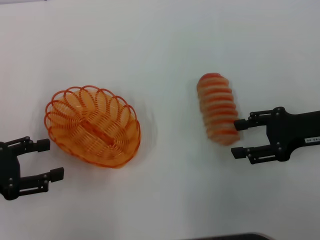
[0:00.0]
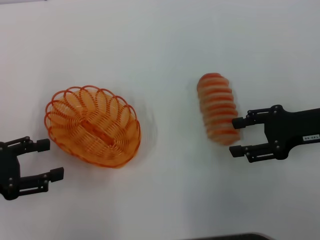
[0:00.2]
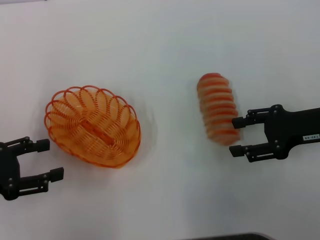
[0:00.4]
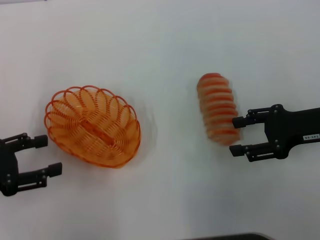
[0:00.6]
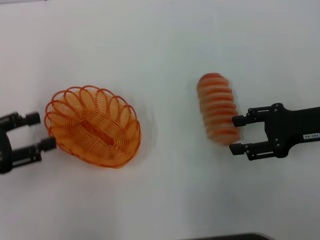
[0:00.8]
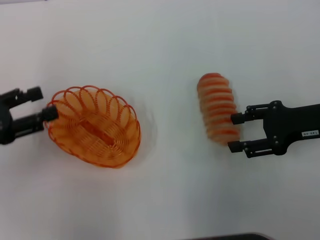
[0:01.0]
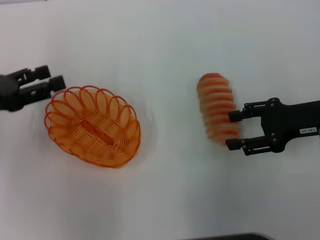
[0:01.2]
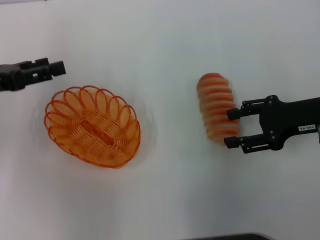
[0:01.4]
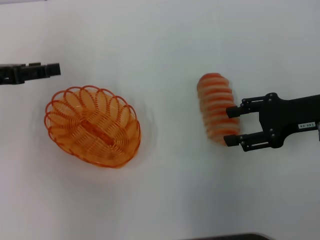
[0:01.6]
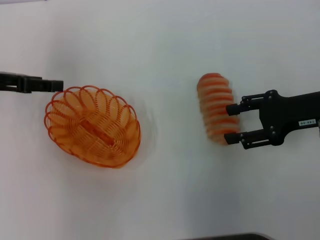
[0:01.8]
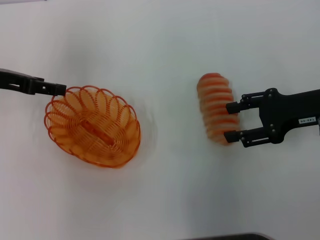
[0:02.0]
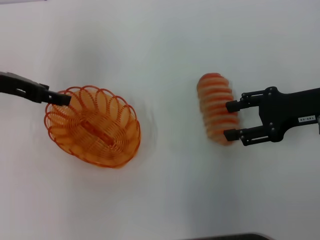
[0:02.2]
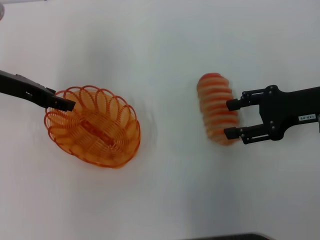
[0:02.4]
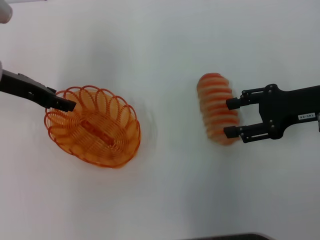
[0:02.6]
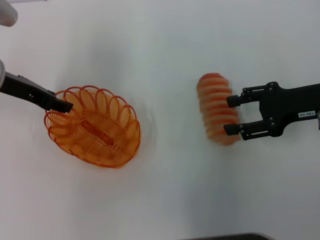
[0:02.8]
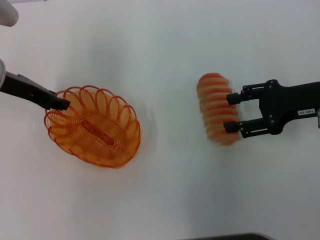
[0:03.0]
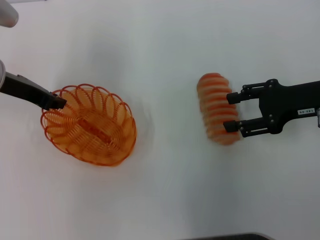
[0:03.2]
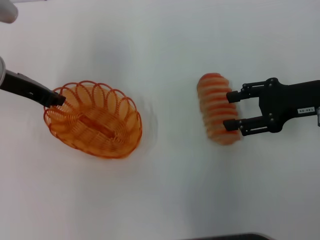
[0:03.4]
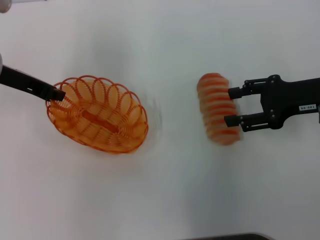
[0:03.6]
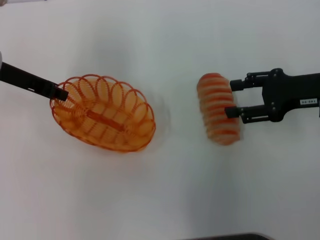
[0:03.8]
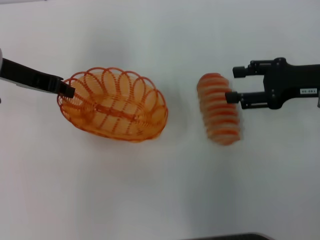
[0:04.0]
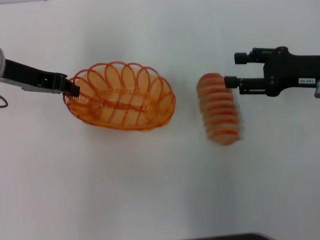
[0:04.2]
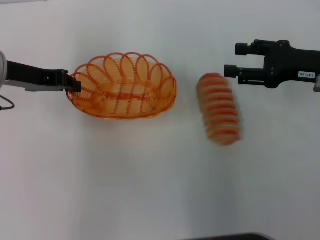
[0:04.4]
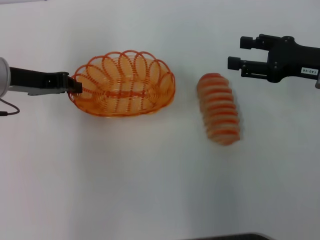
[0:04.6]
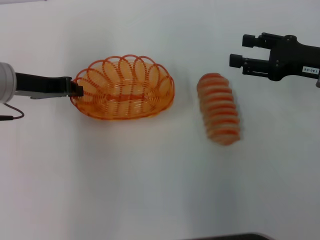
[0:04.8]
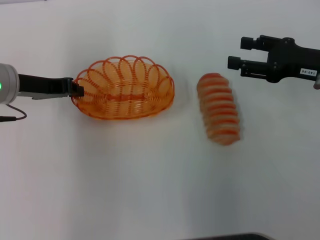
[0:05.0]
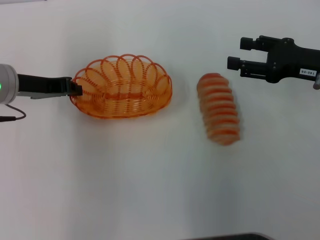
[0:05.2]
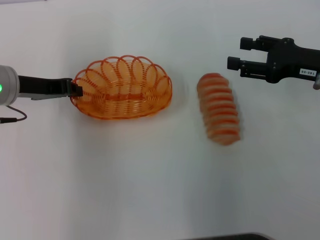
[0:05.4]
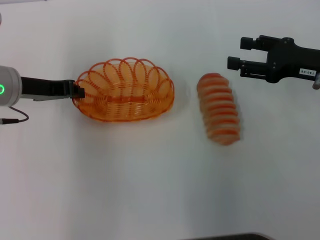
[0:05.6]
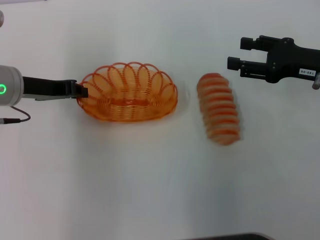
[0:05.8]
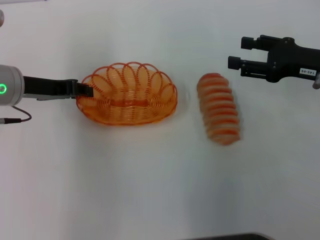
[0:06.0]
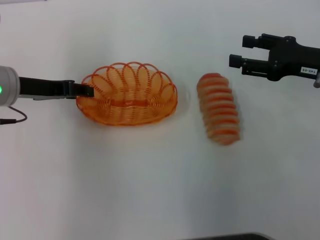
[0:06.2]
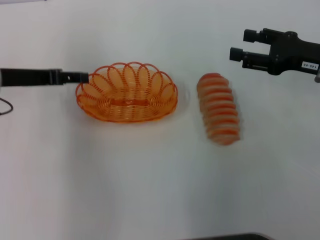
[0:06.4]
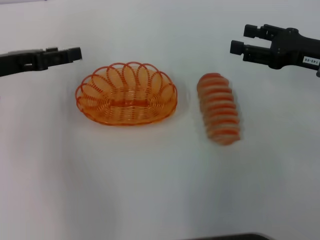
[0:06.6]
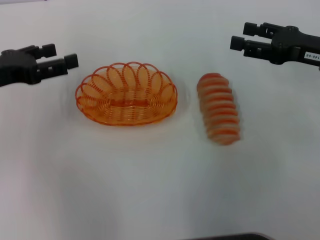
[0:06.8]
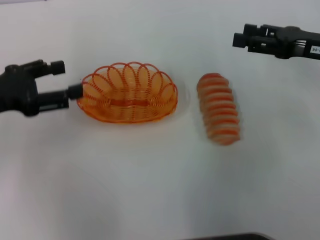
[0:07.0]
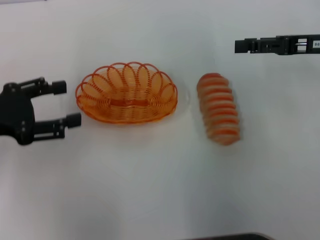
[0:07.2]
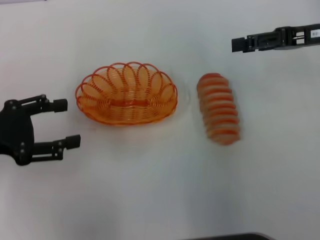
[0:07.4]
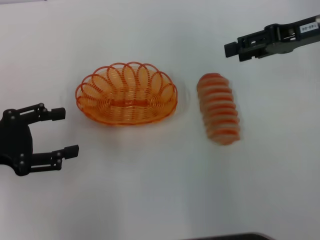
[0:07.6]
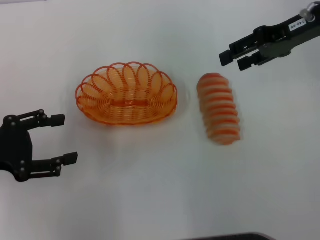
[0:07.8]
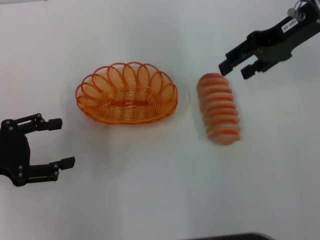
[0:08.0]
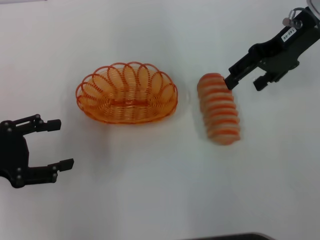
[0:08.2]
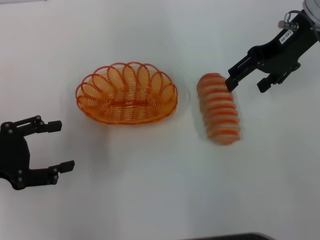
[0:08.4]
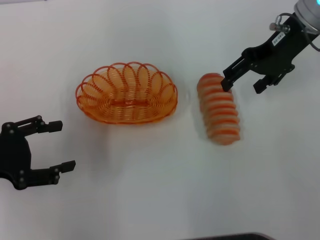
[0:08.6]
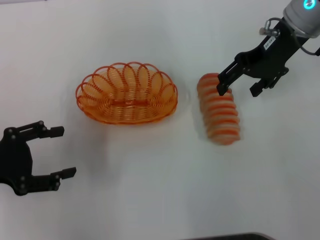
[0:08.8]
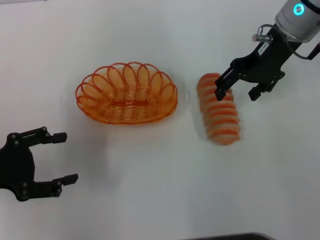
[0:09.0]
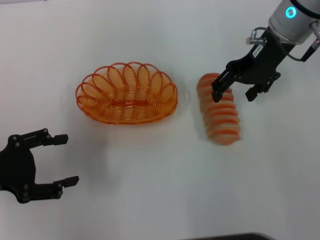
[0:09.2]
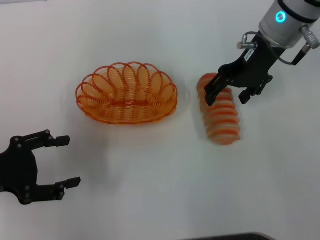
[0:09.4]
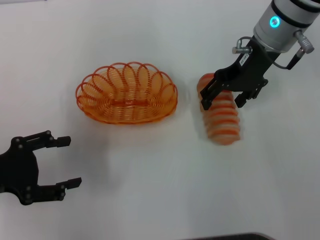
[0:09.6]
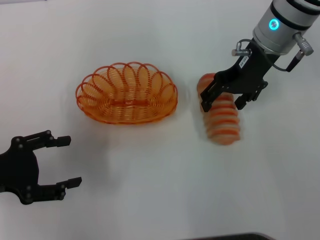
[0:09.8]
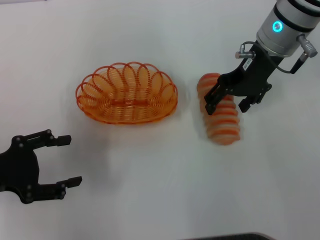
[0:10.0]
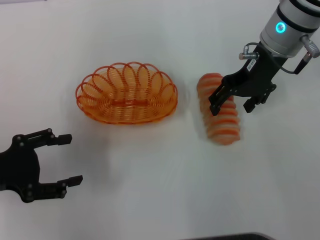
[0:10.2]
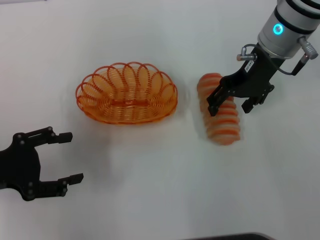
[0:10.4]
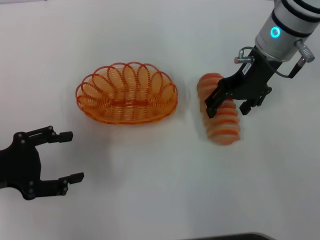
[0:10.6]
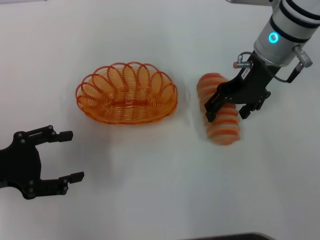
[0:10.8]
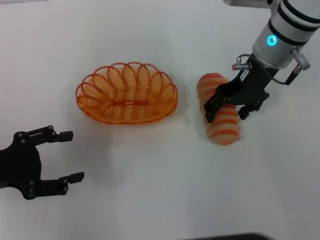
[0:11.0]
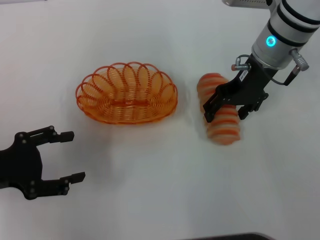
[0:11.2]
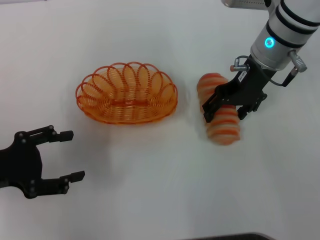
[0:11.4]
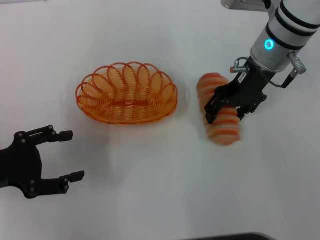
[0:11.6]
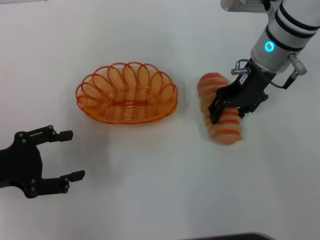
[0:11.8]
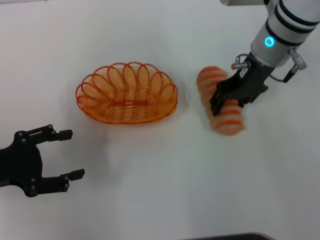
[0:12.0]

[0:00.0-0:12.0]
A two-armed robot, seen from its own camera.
Step, 0:00.0 to 0:03.6: Pick up the basket with the left gripper.
Step, 0:03.8 to 0:06.2: Place the basket in the center of view with the left gripper.
Step, 0:06.6 to 0:12.0: Pick up the long bread with the right gripper.
0:00.0 to 0:01.6: The left gripper heads forward, covering some 10 cm.
0:01.6 to 0:03.0: The left gripper travels to the right by roughly 5 cm.
0:03.0 to 0:04.4: The left gripper closes up.
0:04.4 to 0:06.0: The grippers make only small movements.
0:06.0 to 0:07.6: The right gripper shifts about 10 cm upward and forward. The left gripper goes some 15 cm backward and to the left, and opens up.
0:07.6 to 0:09.0: The right gripper goes some 10 cm to the left.
0:09.0 to 0:10.4: The grippers move only a little.
0:10.4 to 0:12.0: The right gripper closes.

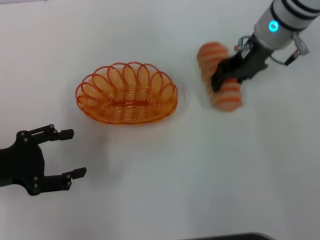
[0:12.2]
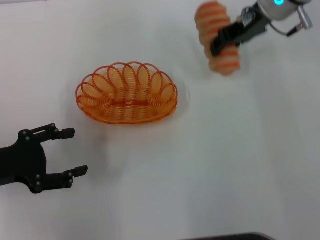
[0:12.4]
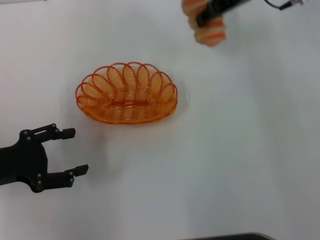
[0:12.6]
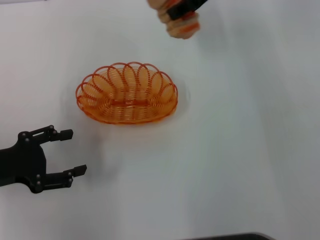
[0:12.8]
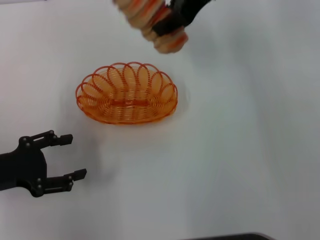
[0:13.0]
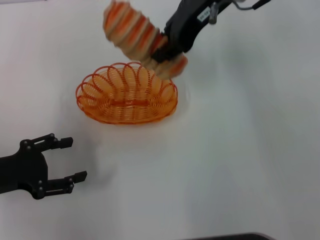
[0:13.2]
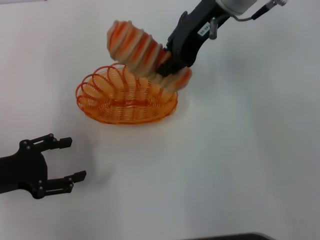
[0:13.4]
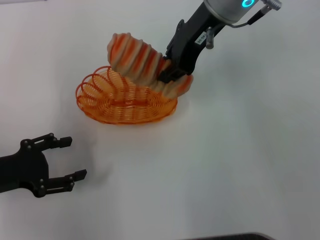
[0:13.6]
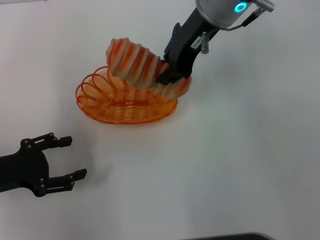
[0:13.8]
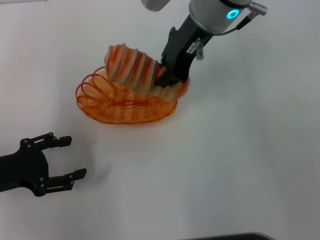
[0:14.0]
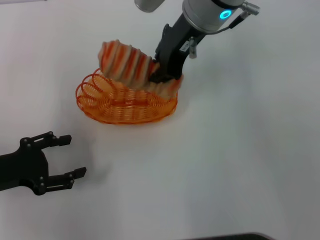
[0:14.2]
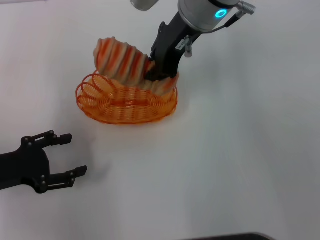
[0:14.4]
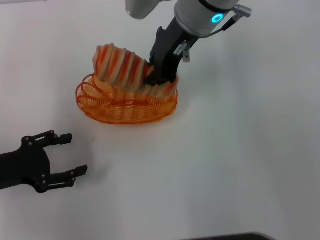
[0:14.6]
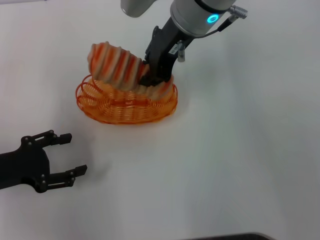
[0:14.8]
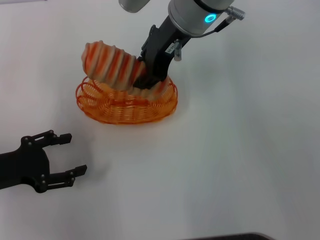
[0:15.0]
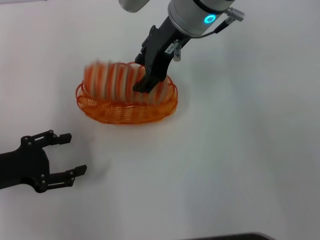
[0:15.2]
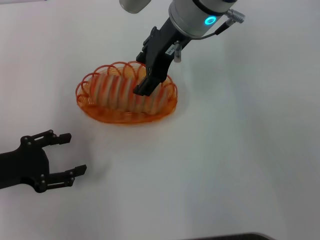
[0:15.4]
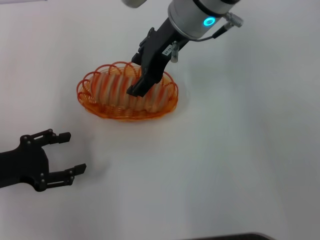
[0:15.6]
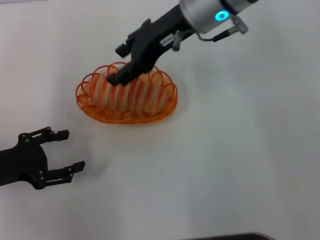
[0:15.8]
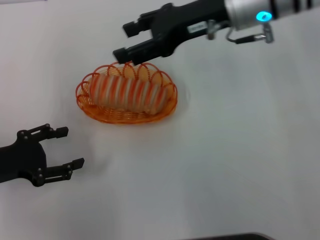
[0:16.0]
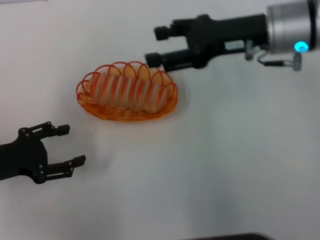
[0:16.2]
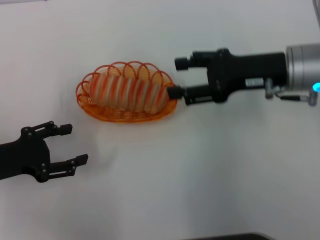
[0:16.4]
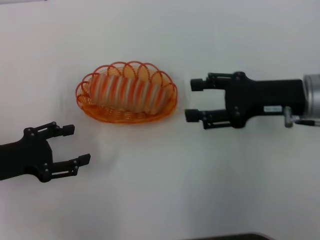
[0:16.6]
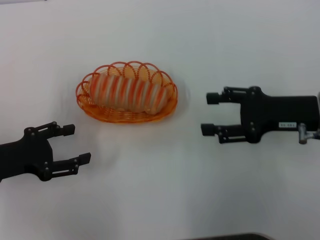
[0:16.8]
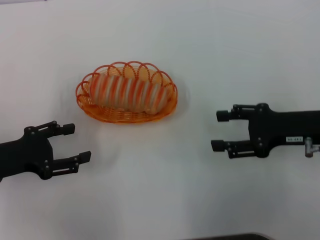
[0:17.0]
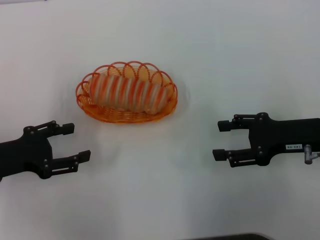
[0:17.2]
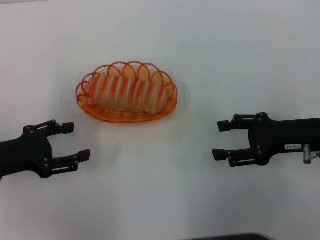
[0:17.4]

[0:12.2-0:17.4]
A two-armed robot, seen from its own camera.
Step, 0:12.2 to 0:15.6: Place the long bread into the basket with the right gripper.
0:12.2 to 0:14.0: The right gripper shifts roughly 10 cm to the left and upward, and closes.
0:14.0 to 0:15.6: The right gripper opens.
0:15.6 to 0:17.4: The right gripper travels to the right, backward and downward by some 30 cm.
